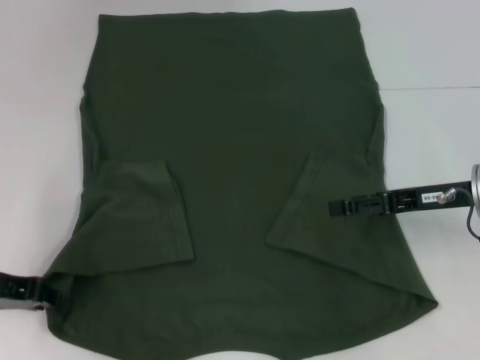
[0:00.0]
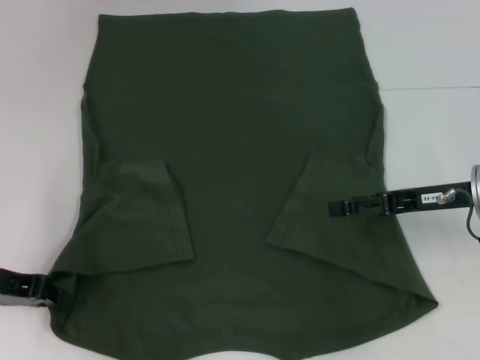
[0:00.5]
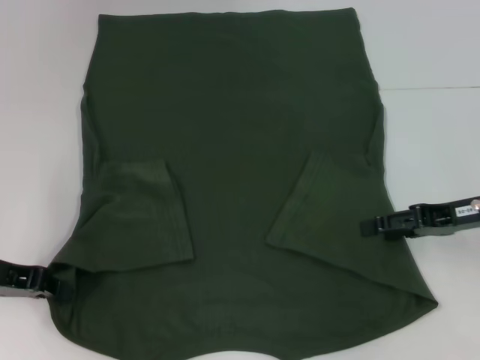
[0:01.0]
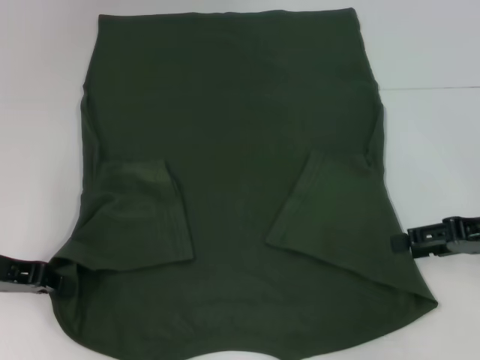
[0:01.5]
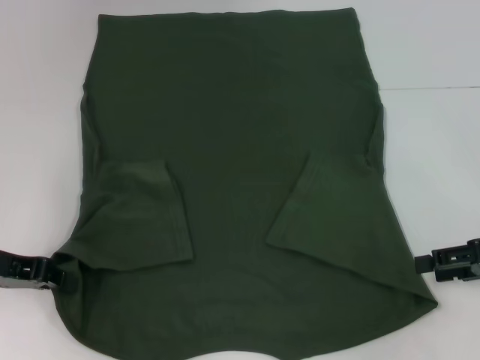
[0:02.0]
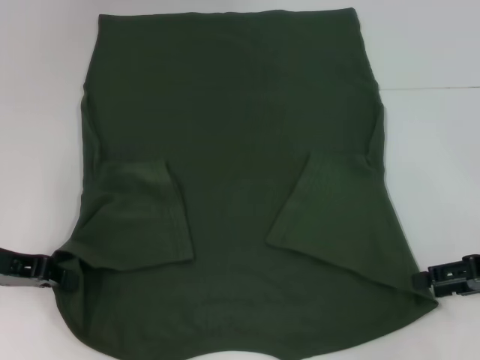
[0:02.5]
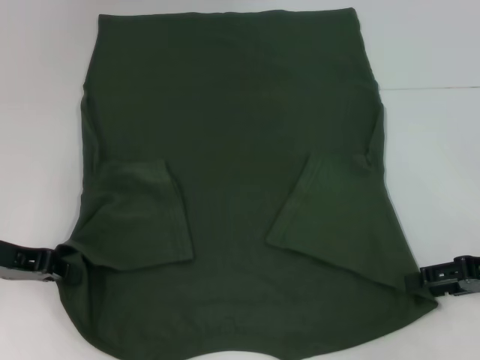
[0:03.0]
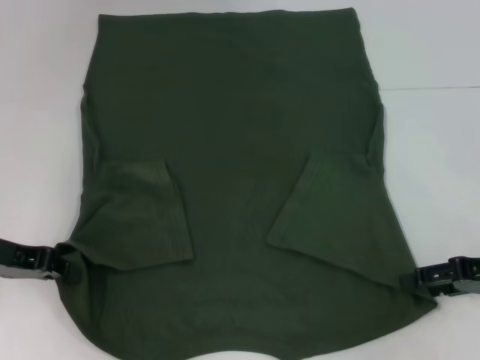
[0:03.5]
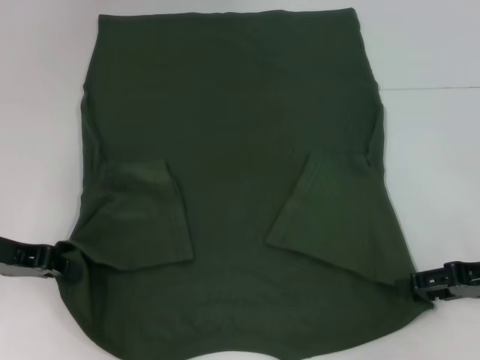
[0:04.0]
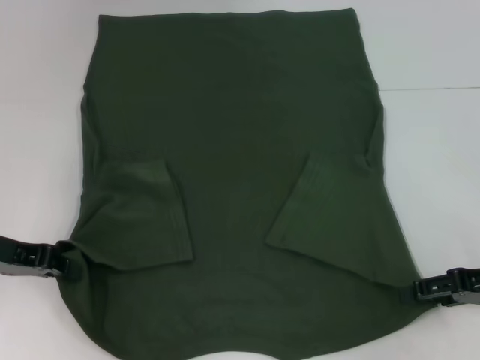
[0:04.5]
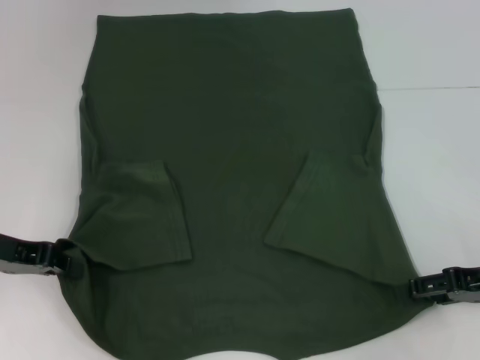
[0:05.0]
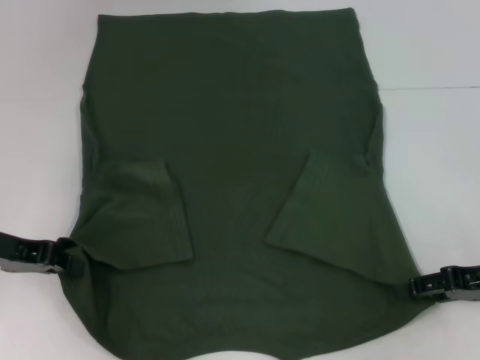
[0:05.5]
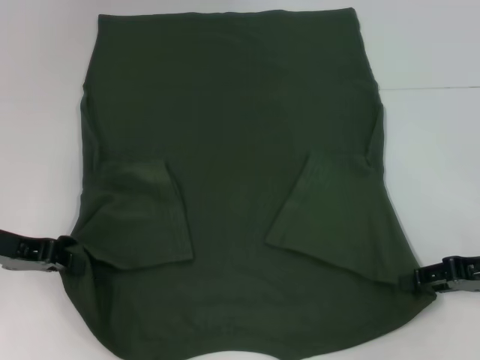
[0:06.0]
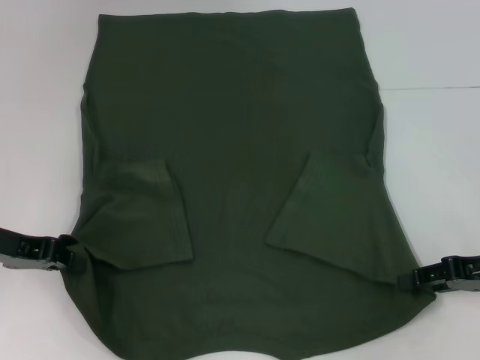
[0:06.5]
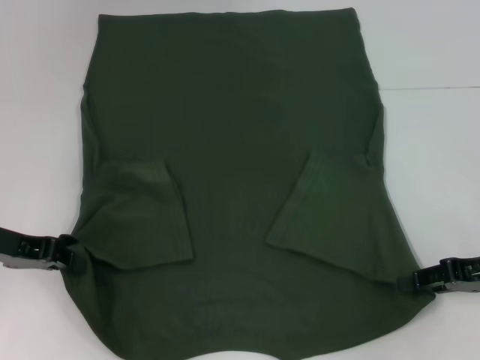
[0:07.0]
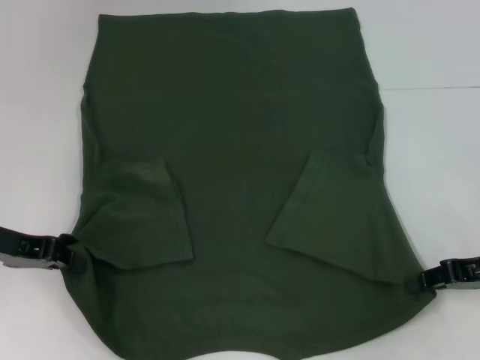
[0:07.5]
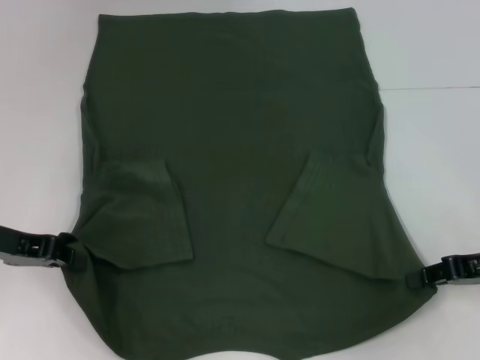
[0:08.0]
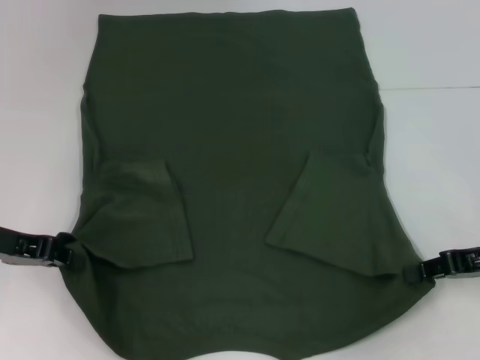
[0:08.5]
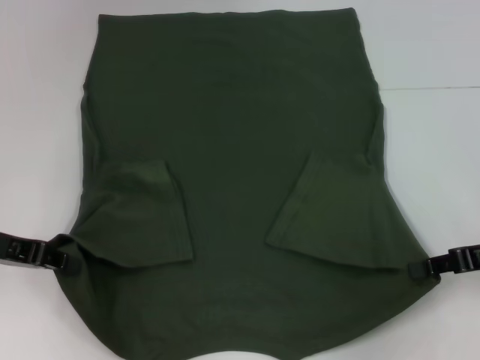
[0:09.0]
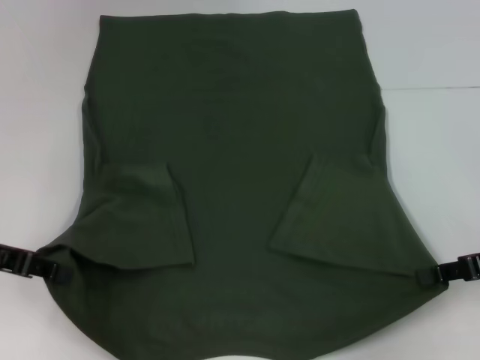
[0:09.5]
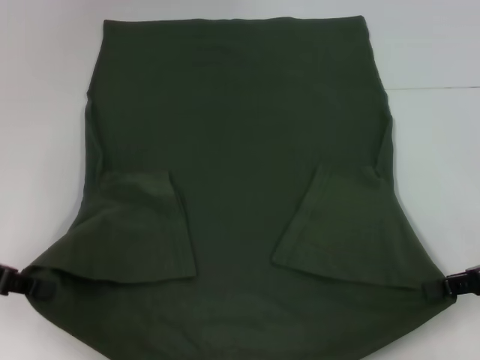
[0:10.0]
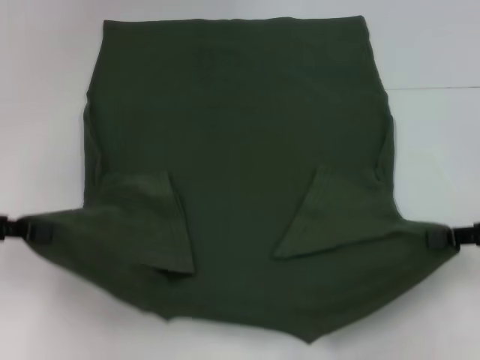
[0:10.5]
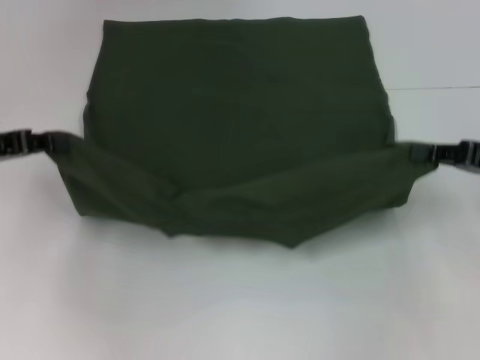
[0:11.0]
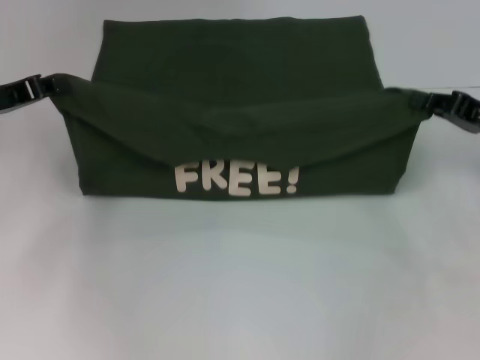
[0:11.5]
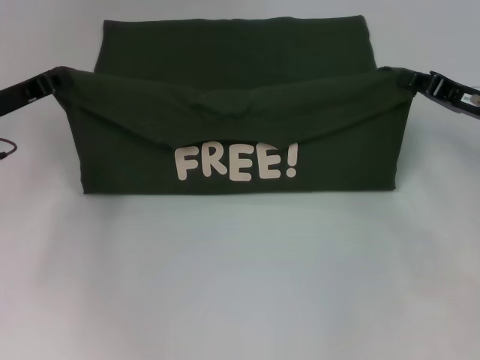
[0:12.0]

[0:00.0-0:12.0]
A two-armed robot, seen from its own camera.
Step, 0:00.0 to 0:08.0: Grab the bottom right corner with your right hand.
0:00.0 to 0:02.0: The right gripper goes approximately 10 cm to the right and backward.
0:02.0 to 0:04.0: There are only small adjustments of the grippers.
0:04.0 to 0:06.0: Both grippers stay put.
0:06.0 to 0:08.0: The right gripper closes its fingers.
0:08.0 to 0:10.0: The grippers stay close to where they were, moving slightly.
0:10.0 to 0:12.0: Both grippers move forward, roughly 10 cm.

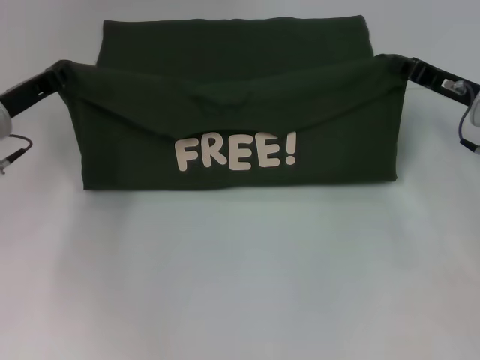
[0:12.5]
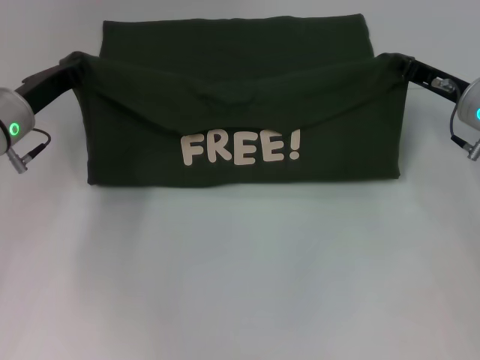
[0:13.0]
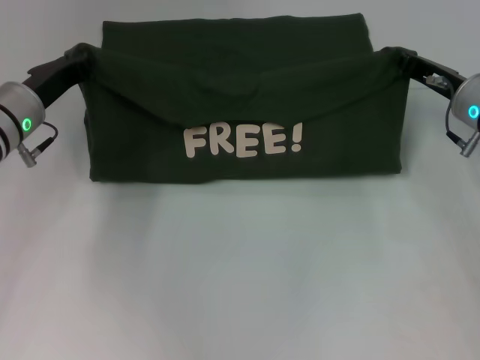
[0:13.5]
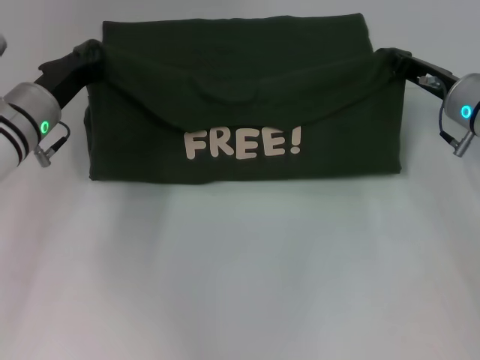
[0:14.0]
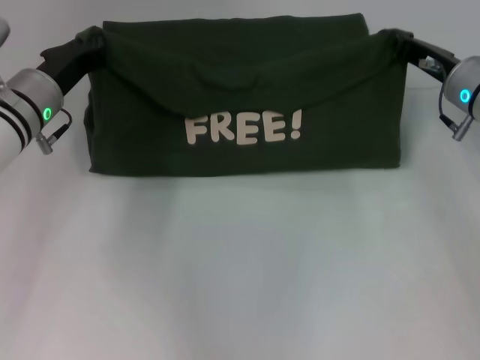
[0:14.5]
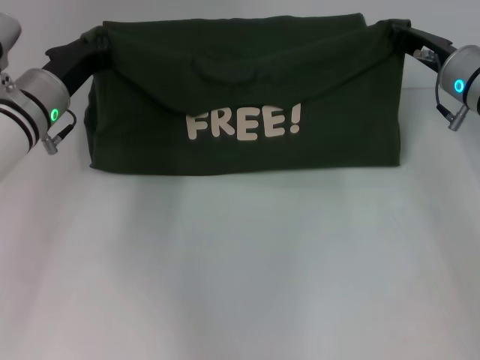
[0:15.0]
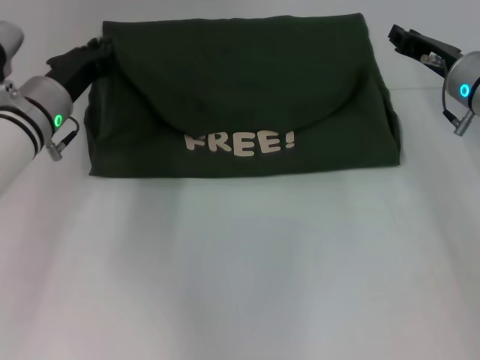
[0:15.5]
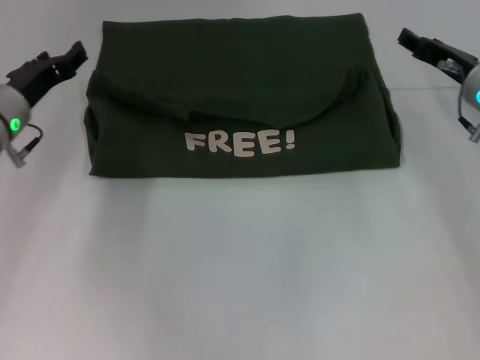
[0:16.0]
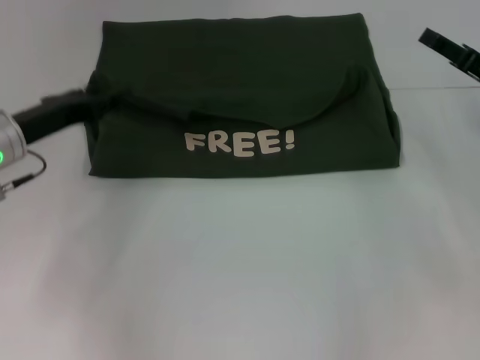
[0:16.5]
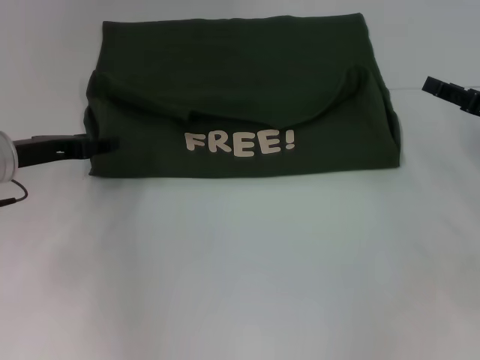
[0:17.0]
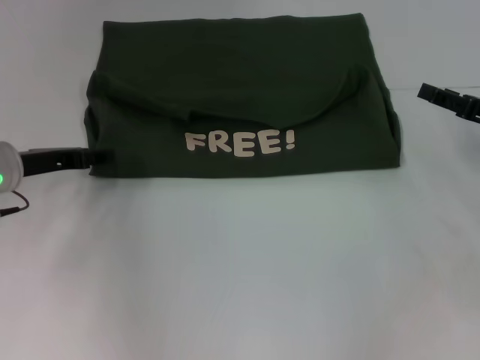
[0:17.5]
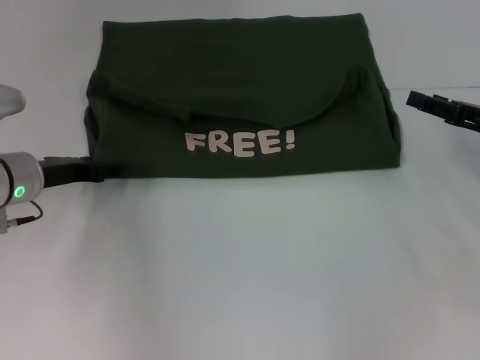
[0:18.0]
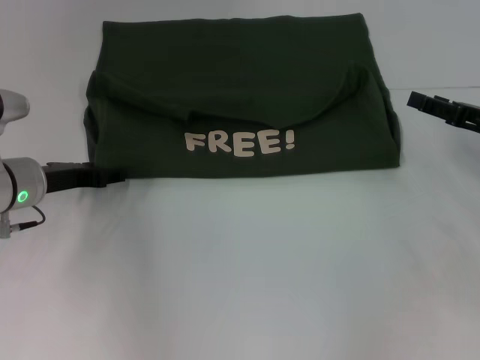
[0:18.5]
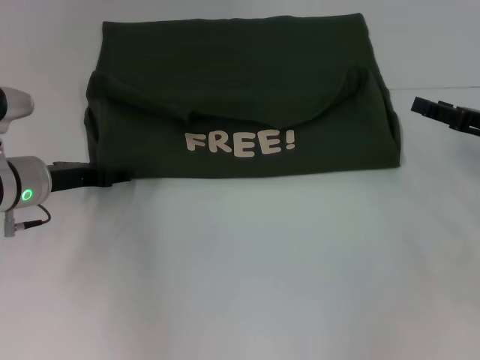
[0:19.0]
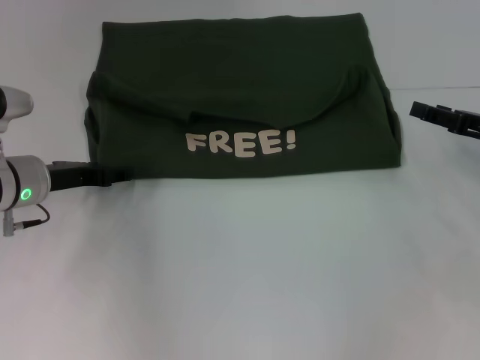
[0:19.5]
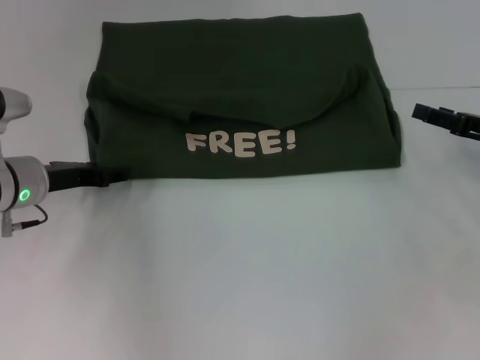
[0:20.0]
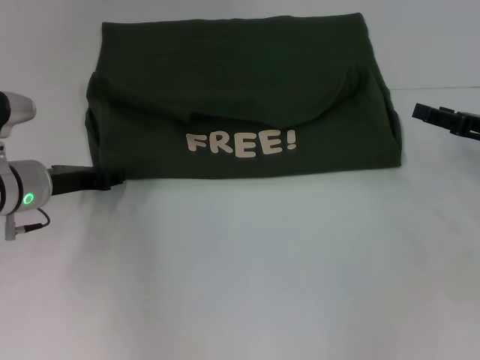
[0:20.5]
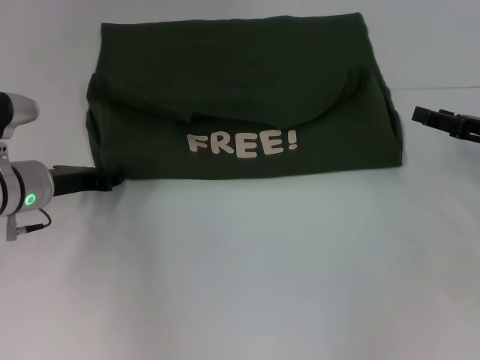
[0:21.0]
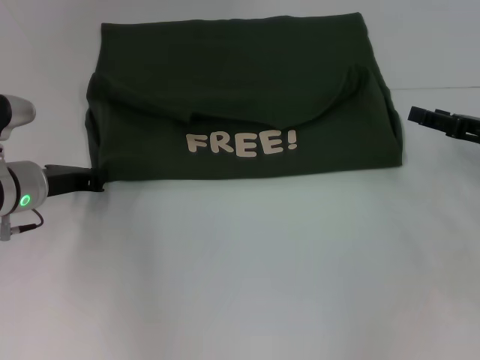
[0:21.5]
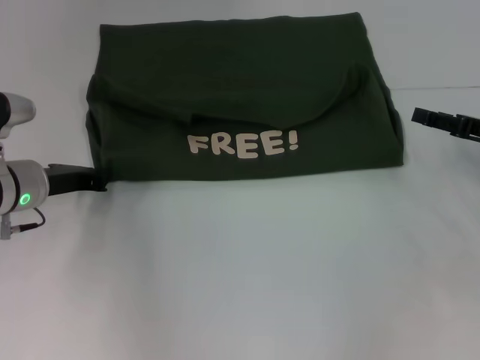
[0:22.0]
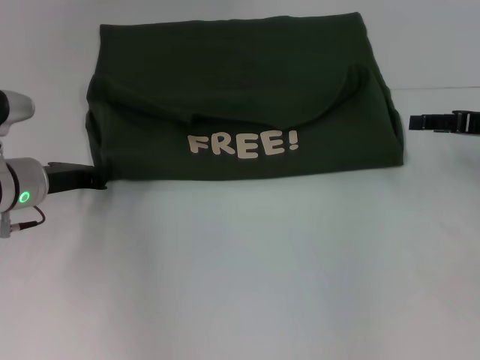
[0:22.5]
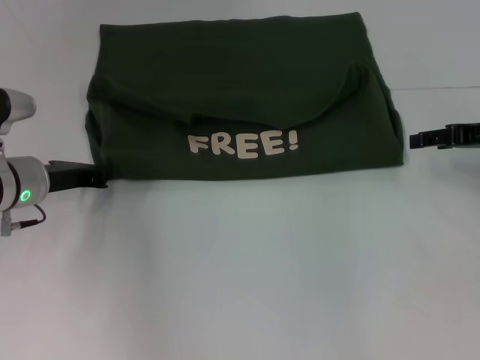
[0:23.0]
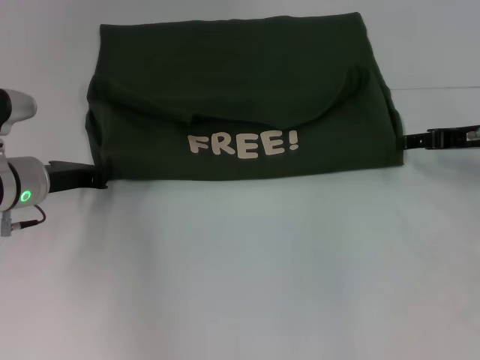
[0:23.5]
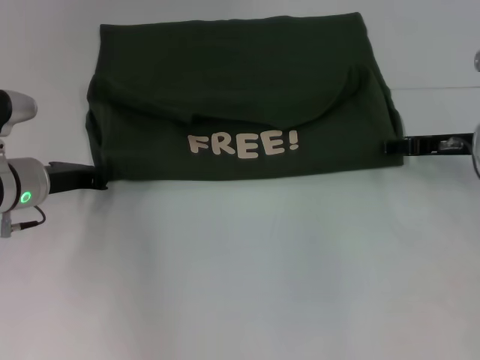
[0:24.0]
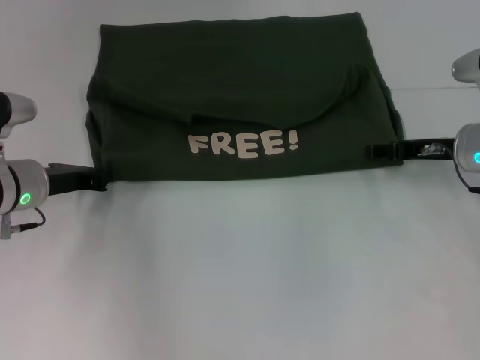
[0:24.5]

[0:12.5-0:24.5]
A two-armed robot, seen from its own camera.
Step, 0:12.5 to 0:15.5: Fold the clothes with your left hand.
Step, 0:12.5 to 0:15.5: Fold the clothes with your right hand.
0:12.5 to 0:14.5: The left gripper goes approximately 5 cm to the right.
0:14.5 to 0:16.5: The left gripper moves some 5 cm, and opens up, while the right gripper moves to the right, some 5 cm, and opens.
0:18.5 to 0:20.5: The two grippers keep their place.
0:20.5 to 0:22.5: The left gripper closes.
0:22.5 to 0:24.5: The right gripper heads to the left and downward, covering some 10 cm.

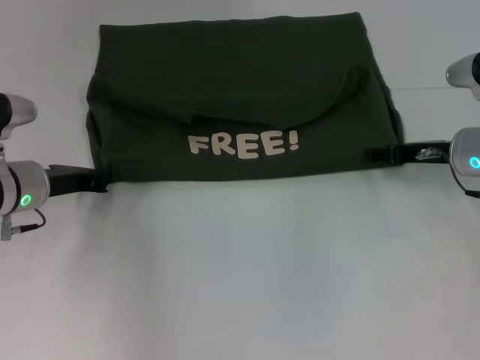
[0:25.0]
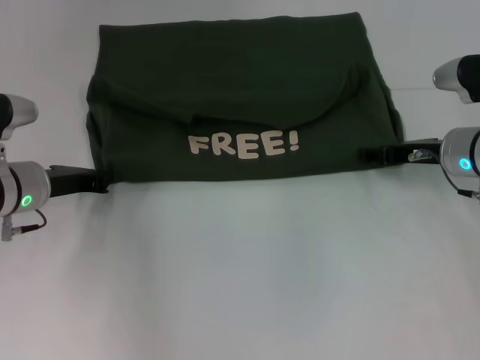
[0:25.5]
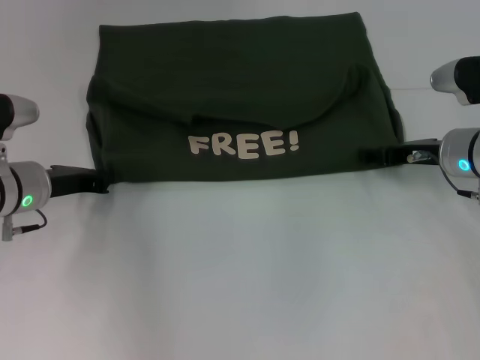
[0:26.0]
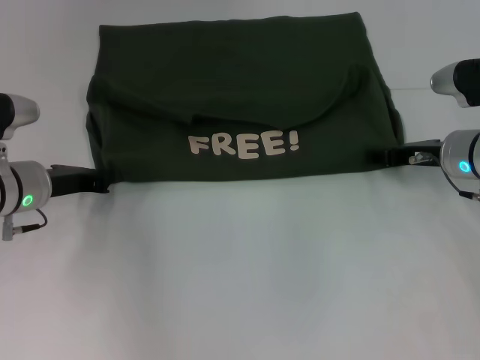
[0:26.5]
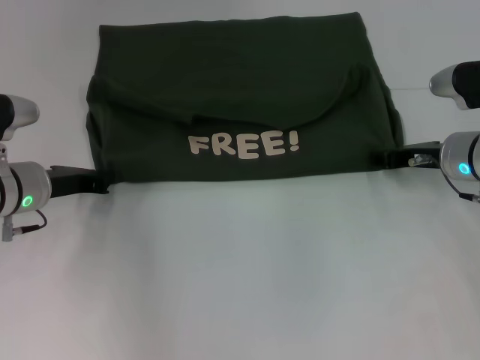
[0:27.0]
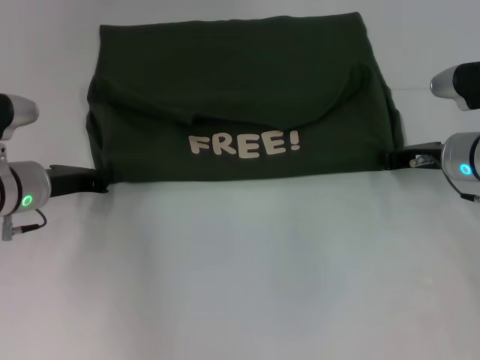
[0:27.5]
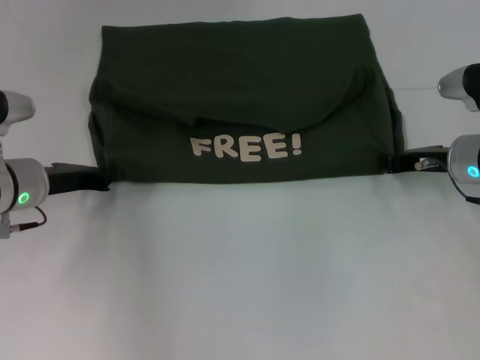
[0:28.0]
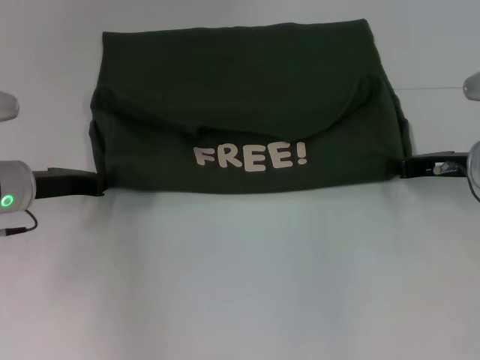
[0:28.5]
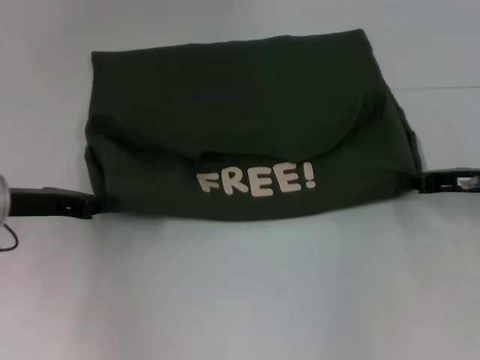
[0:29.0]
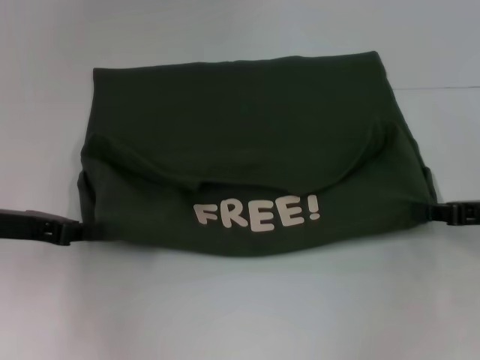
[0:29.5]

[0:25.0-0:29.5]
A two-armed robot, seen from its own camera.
0:25.0 to 0:27.0: The right gripper closes.
0:27.0 to 0:29.5: The left gripper goes some 5 cm backward, while the right gripper travels backward and to the right by some 10 cm.
